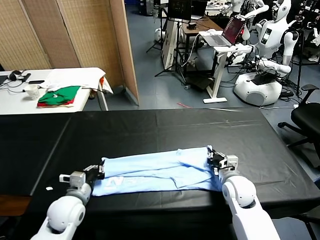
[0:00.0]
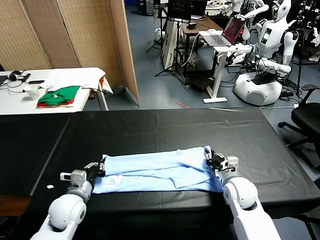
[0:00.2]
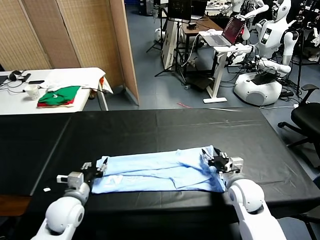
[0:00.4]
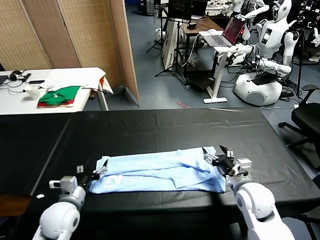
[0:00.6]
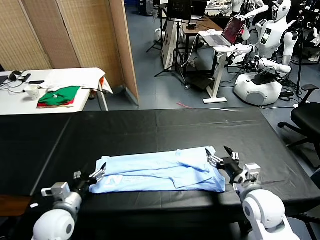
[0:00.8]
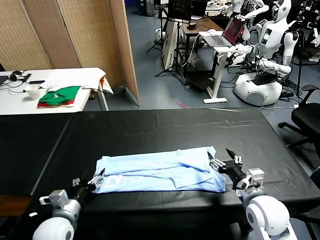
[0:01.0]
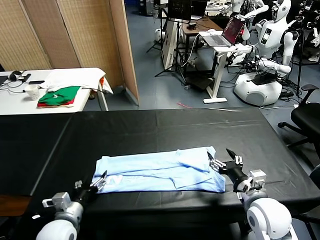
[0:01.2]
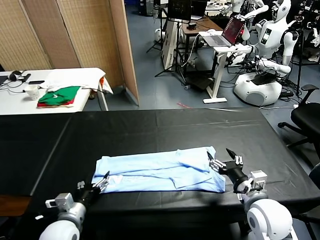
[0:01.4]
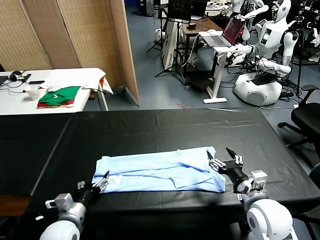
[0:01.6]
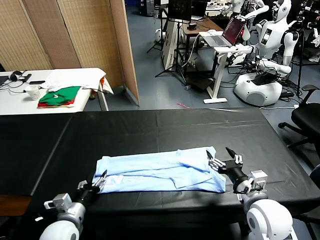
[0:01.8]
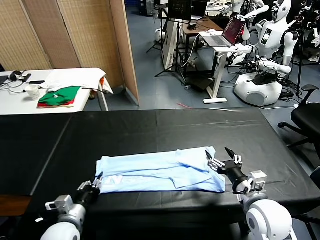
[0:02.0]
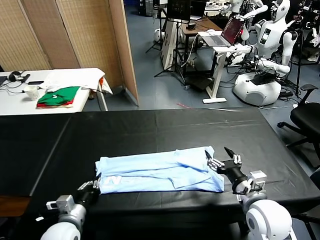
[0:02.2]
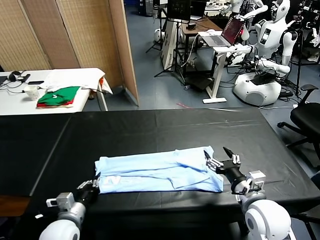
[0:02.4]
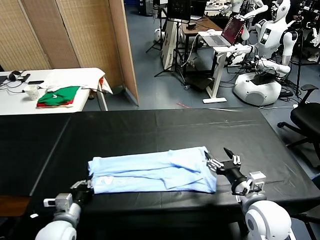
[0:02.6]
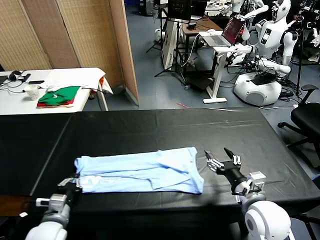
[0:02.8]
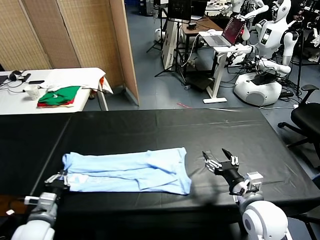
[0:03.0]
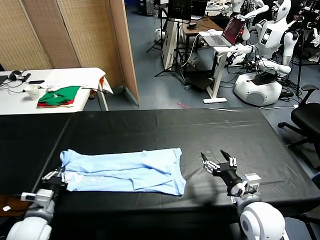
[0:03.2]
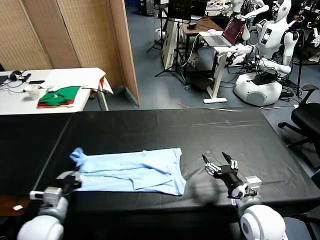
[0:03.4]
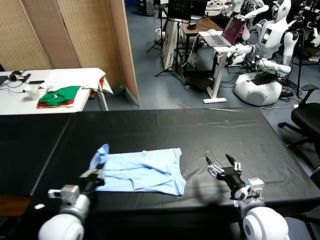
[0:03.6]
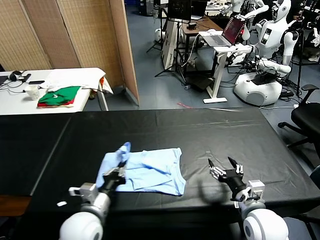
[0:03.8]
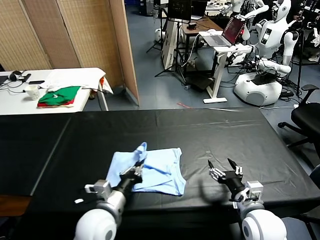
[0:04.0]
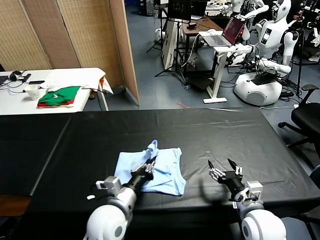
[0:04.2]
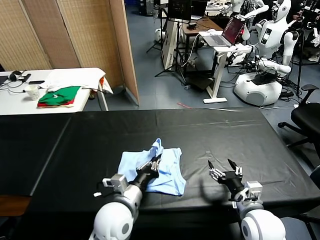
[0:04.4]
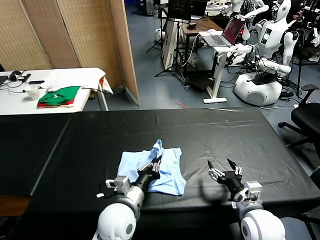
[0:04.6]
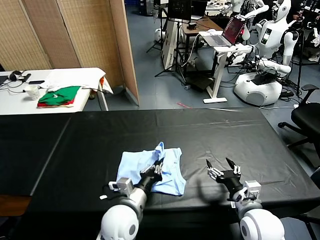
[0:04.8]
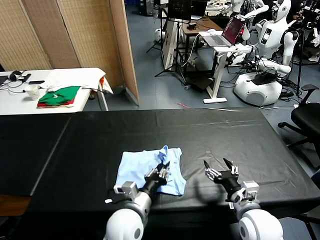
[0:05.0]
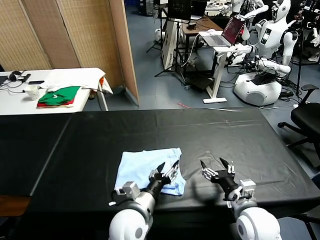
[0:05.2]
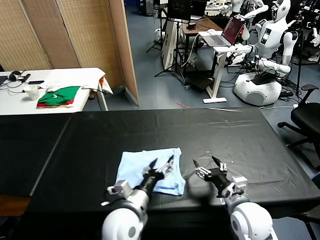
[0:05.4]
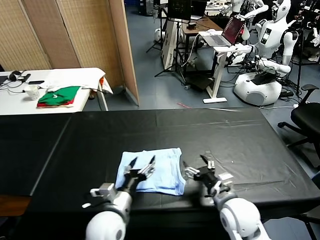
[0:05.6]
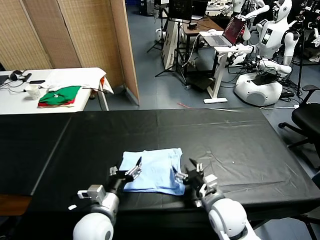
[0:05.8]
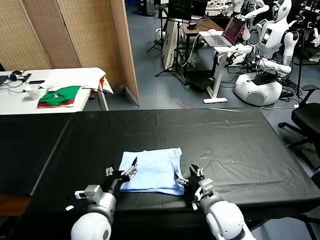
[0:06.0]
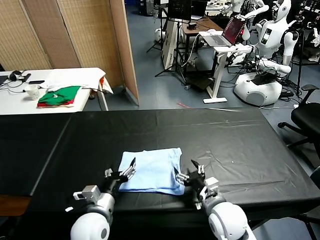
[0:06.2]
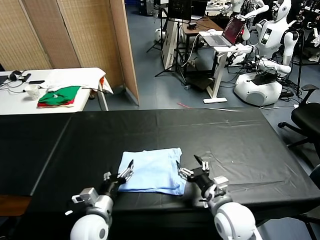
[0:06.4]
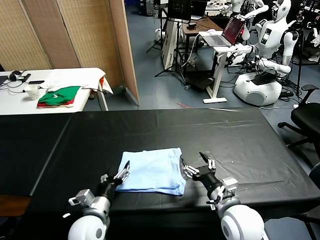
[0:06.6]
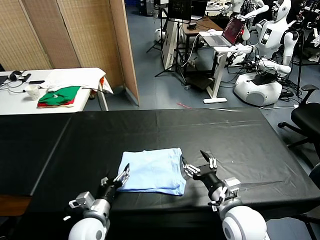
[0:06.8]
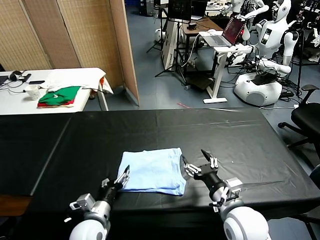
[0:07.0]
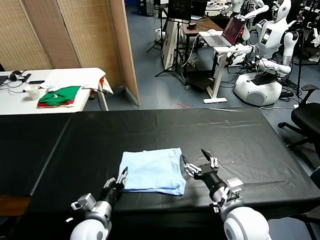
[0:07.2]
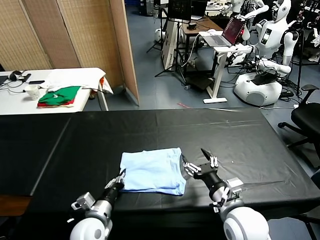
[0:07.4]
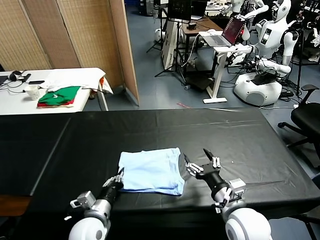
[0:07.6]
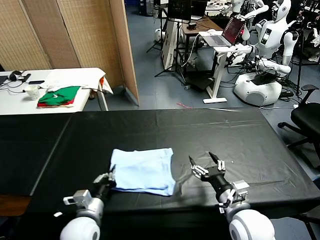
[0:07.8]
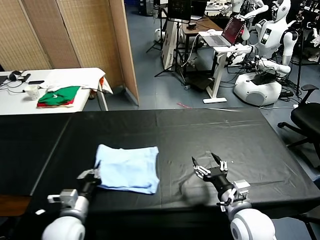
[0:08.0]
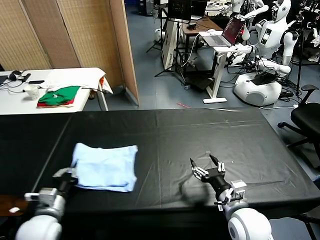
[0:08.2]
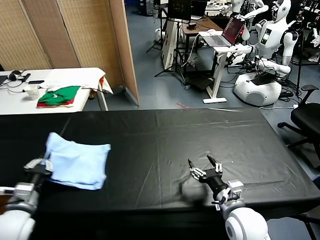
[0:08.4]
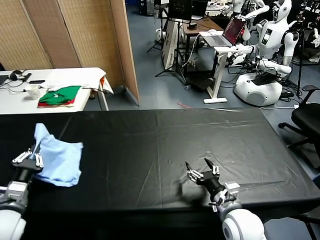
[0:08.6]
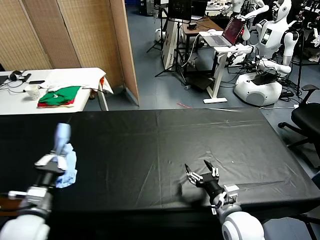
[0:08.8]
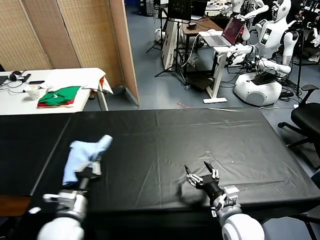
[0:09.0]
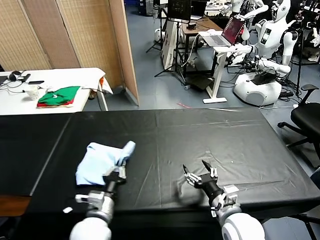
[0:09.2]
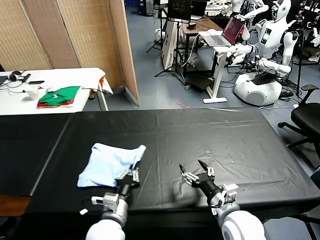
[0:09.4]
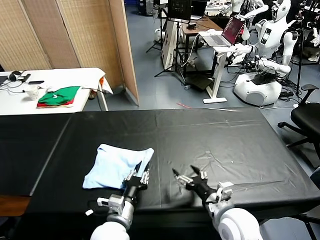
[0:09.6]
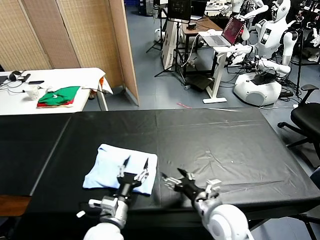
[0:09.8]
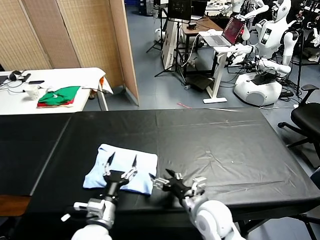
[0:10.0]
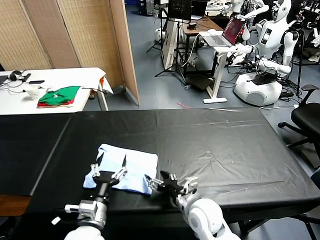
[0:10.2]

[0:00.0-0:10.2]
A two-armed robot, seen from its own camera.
Task of the whole recording: fold and organize the clothes.
Step, 0:00.0 to 0:02.4: use the left gripper to clamp the left edge of the fabric.
Step, 0:02.6 to 0:05.2: use the left gripper to drag the left edge of the fabric to the left and folds it over the right edge.
Step, 0:05.4 to 0:09.6: Flip the folded clothes over with left gripper.
0:00.0 to 0:01.4: The left gripper moves backward, about 5 cm, and opens up, while the right gripper shifts roughly 15 cm backward and upward, and opens.
0:01.4 to 0:03.0: The left gripper moves to the left, approximately 5 cm, and closes up.
0:03.0 to 0:04.4: The left gripper shifts about 25 cm to the right.
0:04.4 to 0:05.8: The left gripper goes approximately 5 cm to the left, and opens. The right gripper shifts approximately 10 cm to the left.
0:05.8 to 0:07.2: The left gripper goes about 5 cm downward, and closes up. The right gripper is displaced upward by some 5 cm.
0:07.2 to 0:08.8: The left gripper goes some 15 cm to the left and upward, and closes up.
0:08.8 to 0:10.2: The right gripper heads to the left, covering roughly 10 cm. Meanwhile the left gripper shifts roughly 15 cm to the right, and opens.

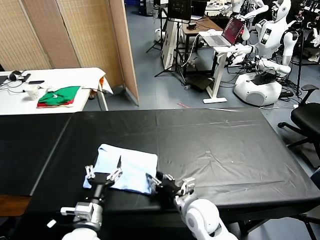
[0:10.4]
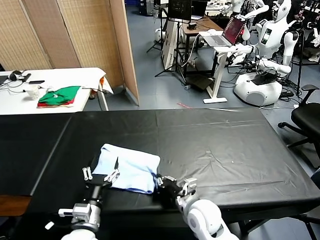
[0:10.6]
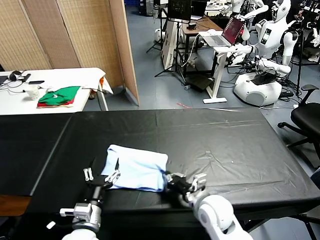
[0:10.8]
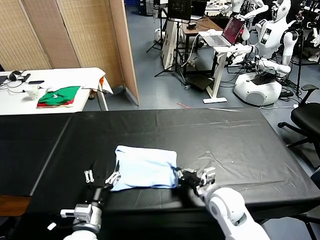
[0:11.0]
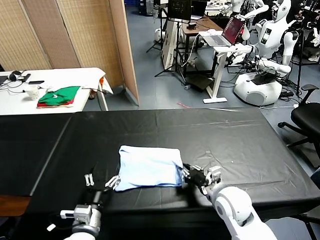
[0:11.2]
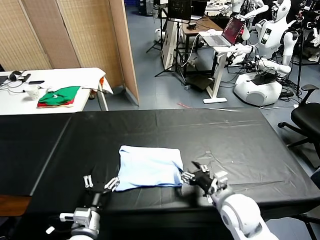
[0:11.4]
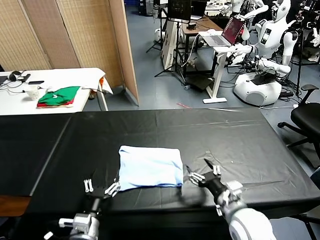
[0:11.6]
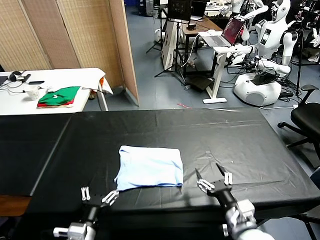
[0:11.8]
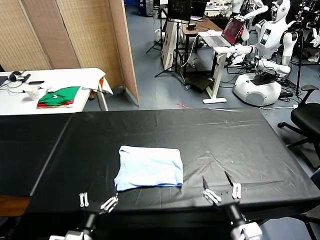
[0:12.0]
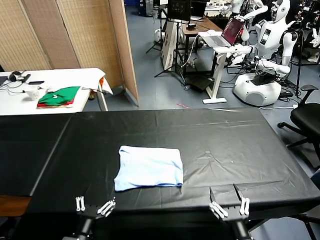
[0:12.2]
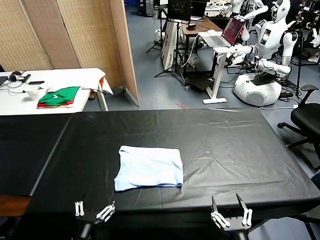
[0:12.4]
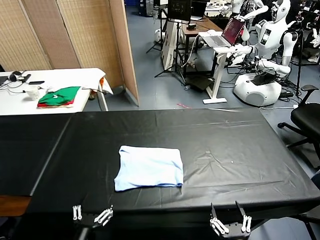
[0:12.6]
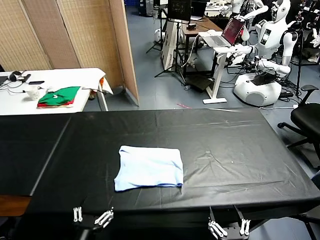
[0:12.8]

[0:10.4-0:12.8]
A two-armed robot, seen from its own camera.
Task of the whole recording: fold and organize the clothes.
Step, 0:10.4 to 0:11.4: Drag the clothes to the center of the table.
0:10.4 to 0:11.6: The right gripper heads to the right and upward, covering some 10 cm, and closes, then reopens.
0:11.6 to 0:12.8: The left gripper goes about 10 cm backward; the right gripper is displaced backward by roughly 20 cm.

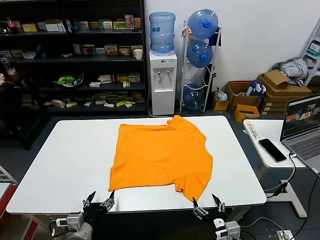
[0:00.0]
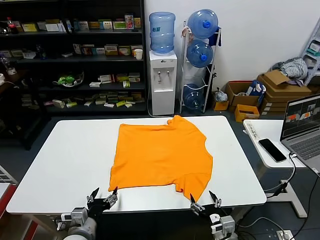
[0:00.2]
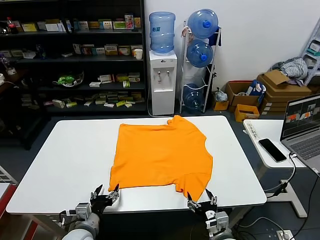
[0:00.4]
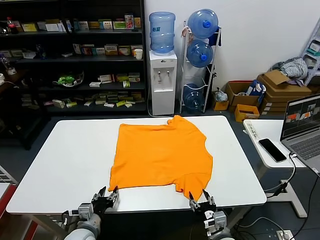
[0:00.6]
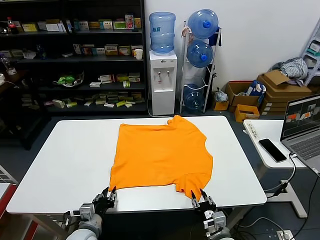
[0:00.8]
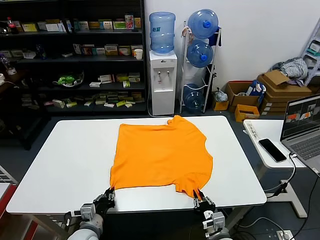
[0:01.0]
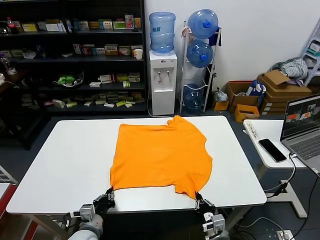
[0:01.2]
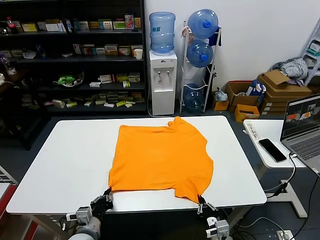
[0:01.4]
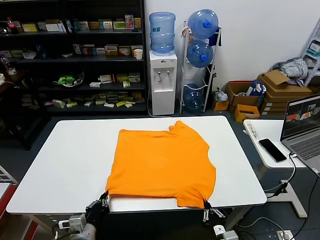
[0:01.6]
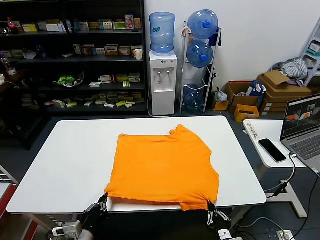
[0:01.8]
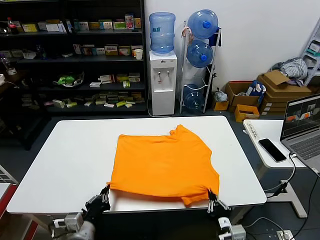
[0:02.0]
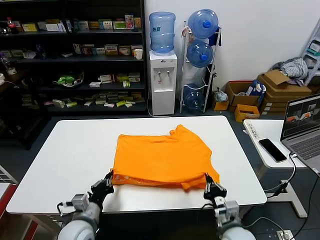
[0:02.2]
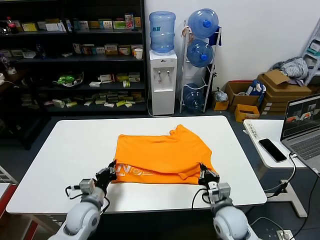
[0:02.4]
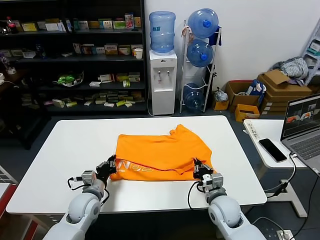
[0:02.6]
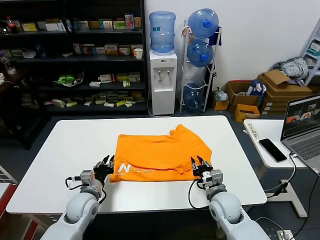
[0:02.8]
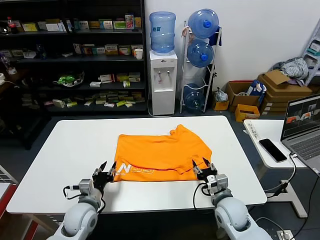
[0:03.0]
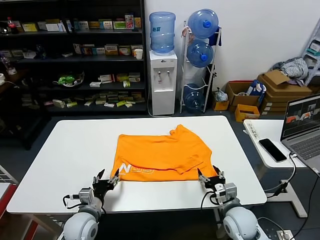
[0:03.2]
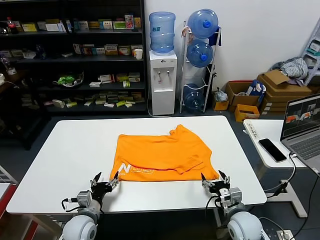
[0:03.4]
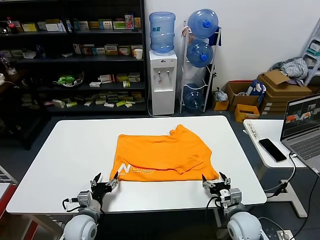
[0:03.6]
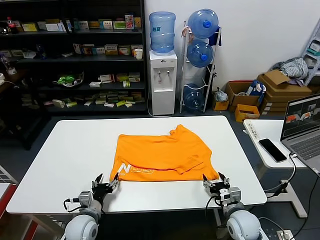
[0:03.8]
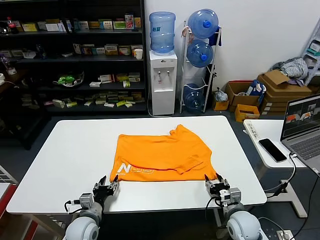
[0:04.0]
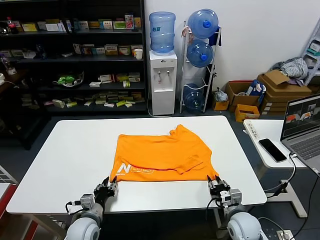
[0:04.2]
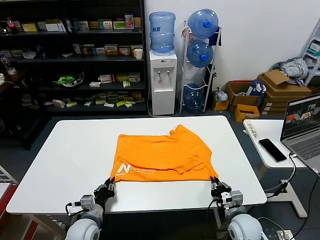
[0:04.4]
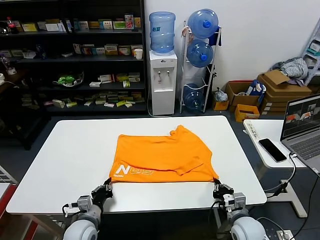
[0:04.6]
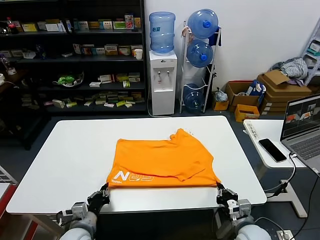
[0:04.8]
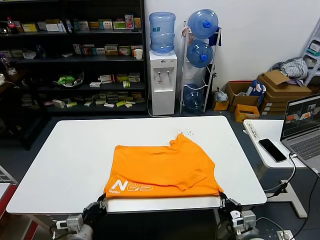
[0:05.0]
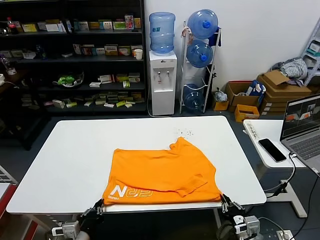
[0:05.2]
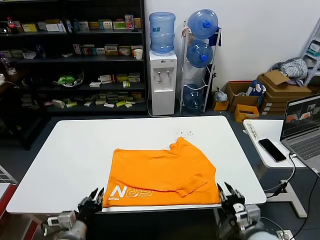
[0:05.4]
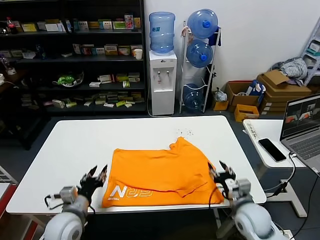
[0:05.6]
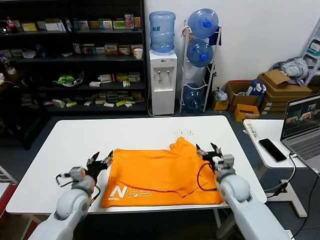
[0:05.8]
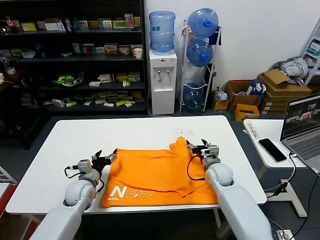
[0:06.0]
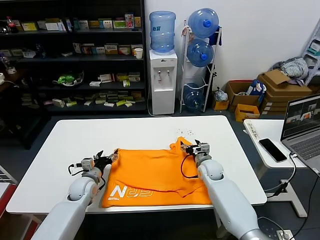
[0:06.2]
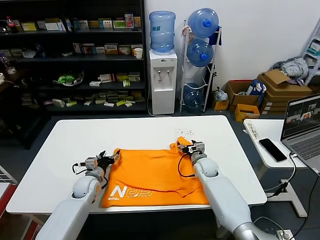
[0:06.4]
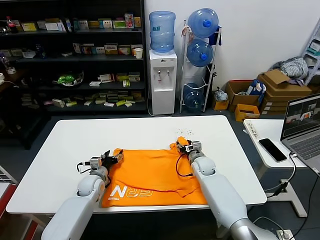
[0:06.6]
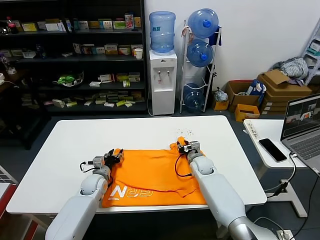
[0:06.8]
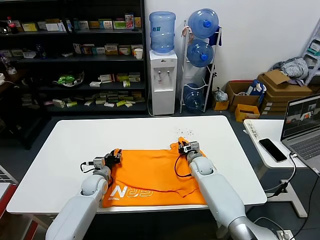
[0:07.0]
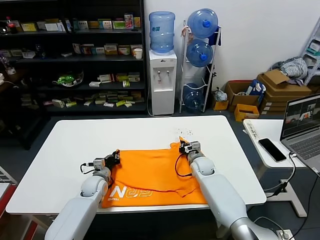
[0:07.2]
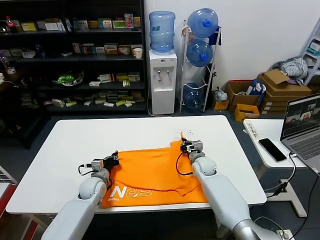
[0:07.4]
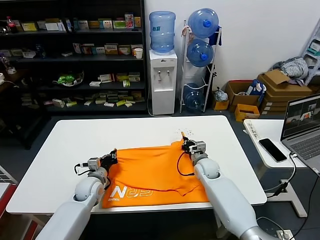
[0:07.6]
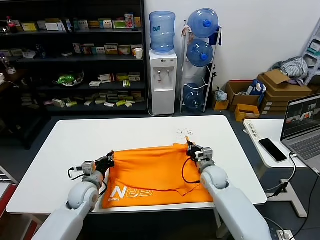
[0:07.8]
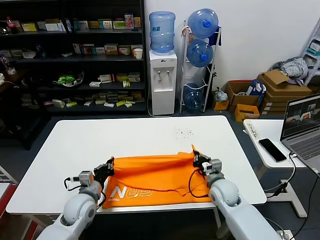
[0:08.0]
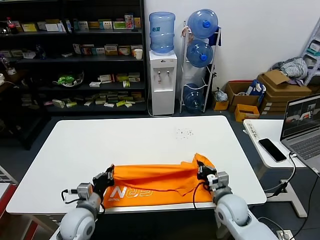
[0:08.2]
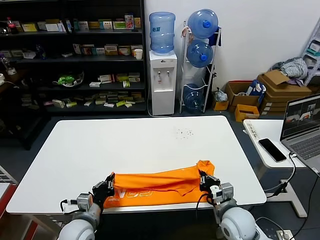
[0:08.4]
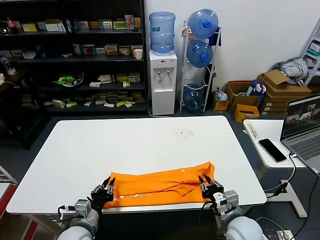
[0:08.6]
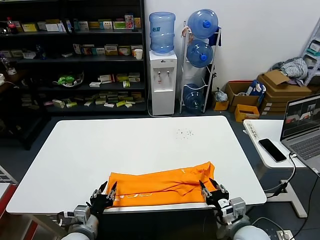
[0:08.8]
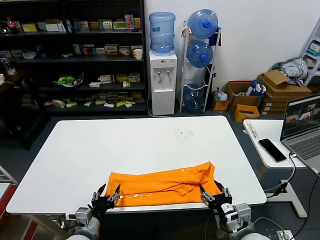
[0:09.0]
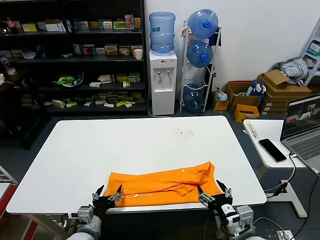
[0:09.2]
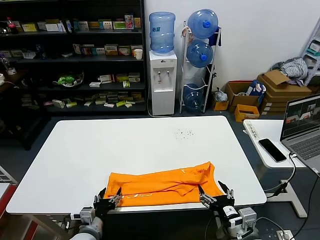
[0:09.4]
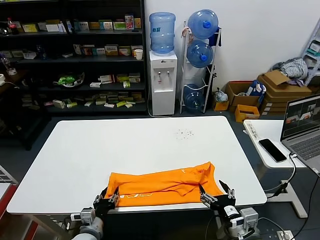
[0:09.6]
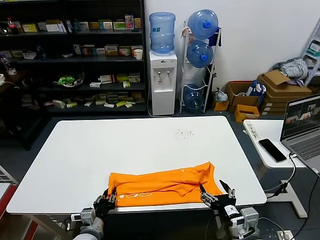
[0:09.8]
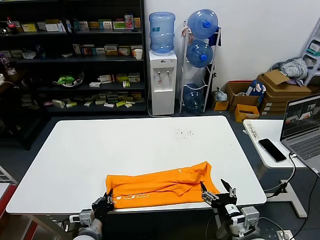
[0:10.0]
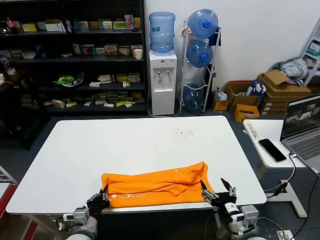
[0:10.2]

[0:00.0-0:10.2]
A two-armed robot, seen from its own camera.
Task of the whole recording: fold and organize the clothes.
Step, 0:00.0 to 0:01.2: use both grippers simultaneously to clamp the lower edge of the clothing fabric.
Step, 0:01.4 to 0:02.6: use both grippers to drag the lower edge of the fabric forward and fold it over the upper edge.
Step, 0:02.8 to 0:05.2: Drag the clothes downward with both gripper.
Step, 0:05.4 to 0:07.2: use both grippers simultaneously to clamp the upper edge of the clothing fabric.
Step, 0:07.6 to 0:08.6: use both grippers to drag the upper edge of the fabric backward and fold it over the lower edge.
Step, 0:08.8 to 0:10.0: use the left gripper to clamp the left edge of the fabric.
0:01.4 to 0:03.0: The left gripper heads forward, covering some 10 cm, and opens its fingers. Meanwhile the right gripper travels forward by roughly 15 cm, and opens its fingers.
0:03.0 to 0:04.4: The left gripper ends up roughly 5 cm from where it was, and closes; the right gripper shifts by about 5 cm, and closes up.
0:04.4 to 0:05.8: The right gripper is displaced forward and upward by some 15 cm, and opens up; the left gripper is displaced upward and forward by approximately 10 cm, and opens its fingers.
0:05.8 to 0:07.2: The right gripper moves forward, to the left and downward, roughly 15 cm, and closes; the left gripper moves forward and downward, some 15 cm, and closes its fingers.
0:07.2 to 0:08.8: Both grippers travel together backward, some 25 cm. The right gripper opens.
0:08.8 to 0:10.2: The left gripper closes up. Meanwhile the right gripper opens its fingers.
